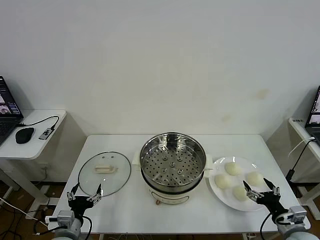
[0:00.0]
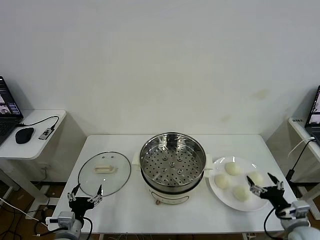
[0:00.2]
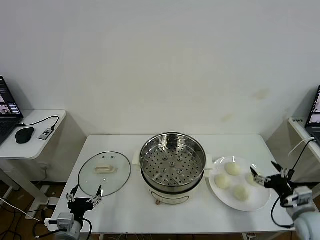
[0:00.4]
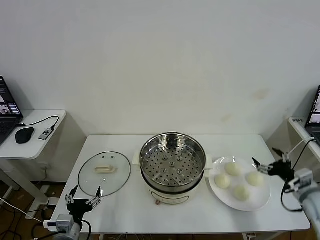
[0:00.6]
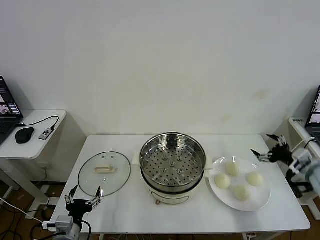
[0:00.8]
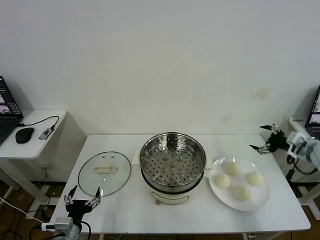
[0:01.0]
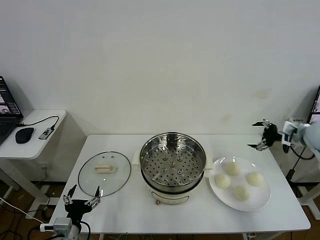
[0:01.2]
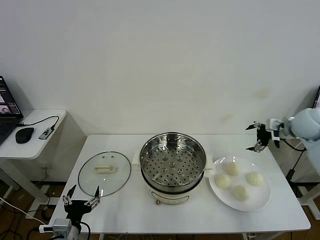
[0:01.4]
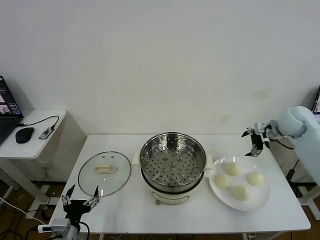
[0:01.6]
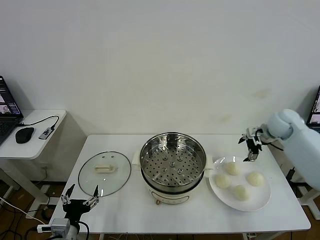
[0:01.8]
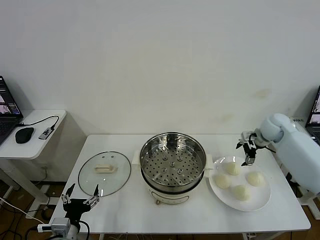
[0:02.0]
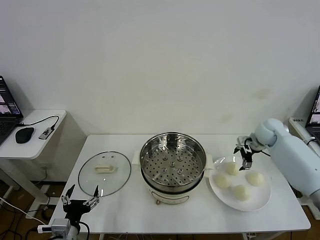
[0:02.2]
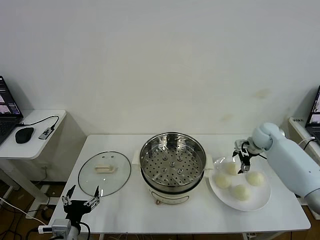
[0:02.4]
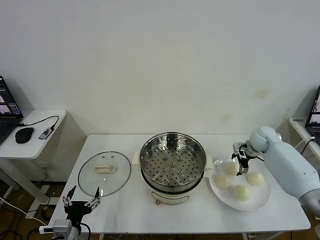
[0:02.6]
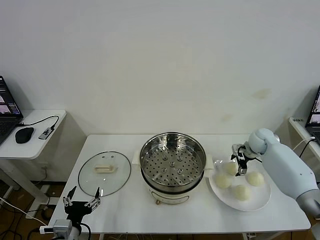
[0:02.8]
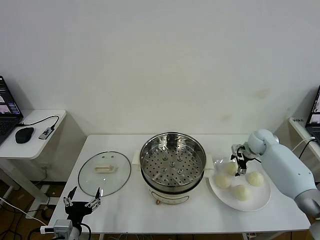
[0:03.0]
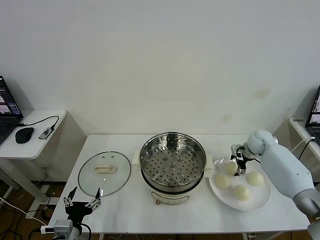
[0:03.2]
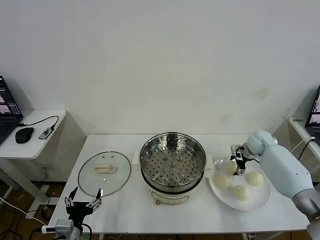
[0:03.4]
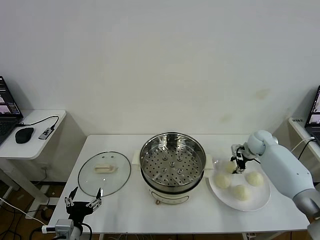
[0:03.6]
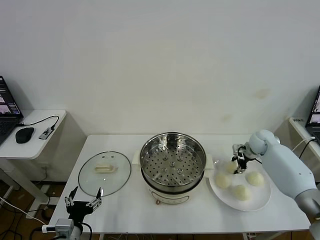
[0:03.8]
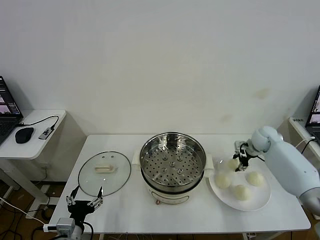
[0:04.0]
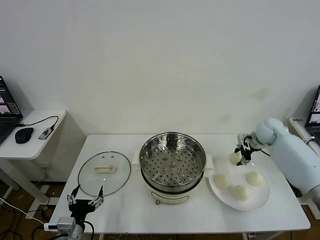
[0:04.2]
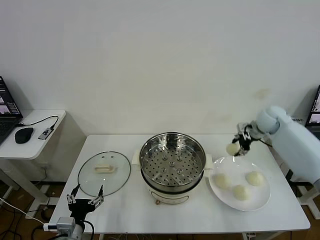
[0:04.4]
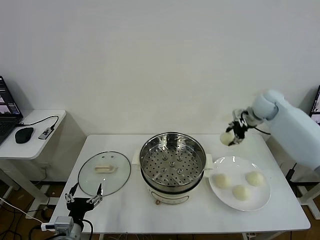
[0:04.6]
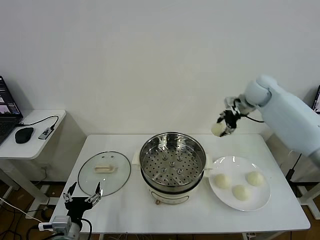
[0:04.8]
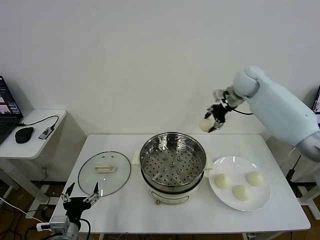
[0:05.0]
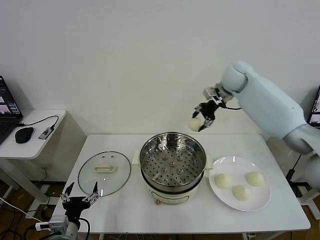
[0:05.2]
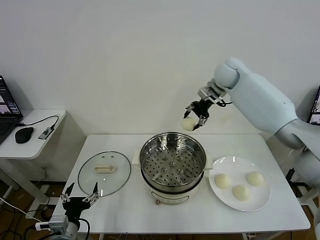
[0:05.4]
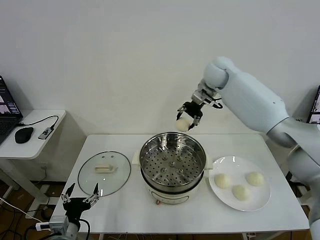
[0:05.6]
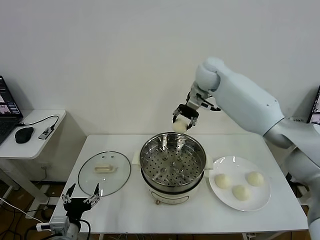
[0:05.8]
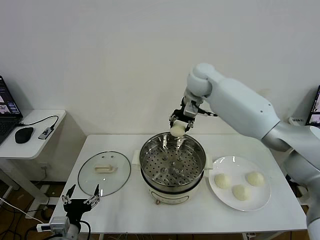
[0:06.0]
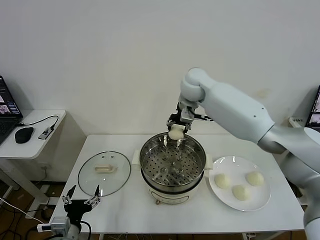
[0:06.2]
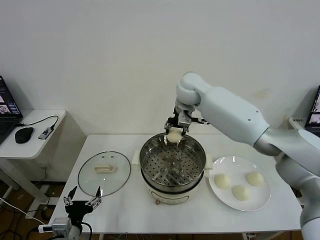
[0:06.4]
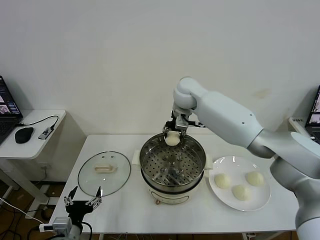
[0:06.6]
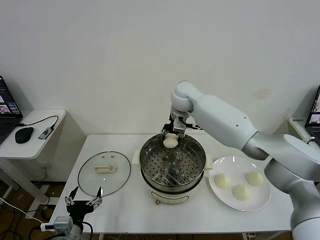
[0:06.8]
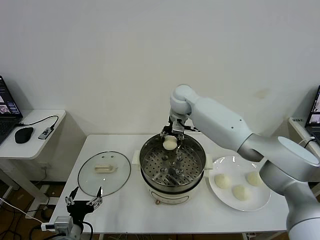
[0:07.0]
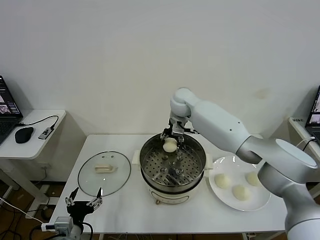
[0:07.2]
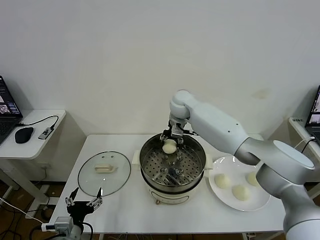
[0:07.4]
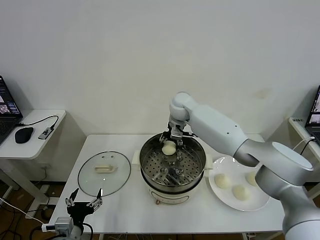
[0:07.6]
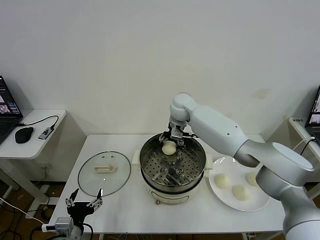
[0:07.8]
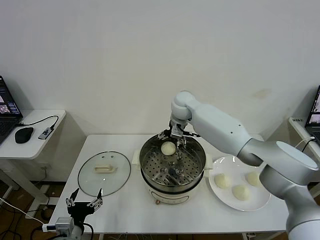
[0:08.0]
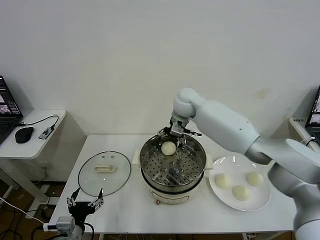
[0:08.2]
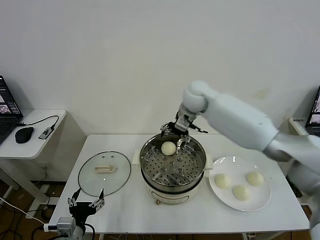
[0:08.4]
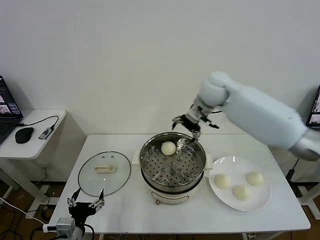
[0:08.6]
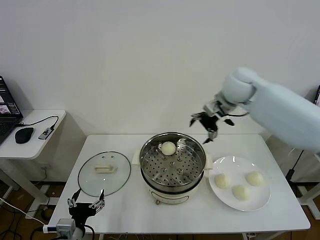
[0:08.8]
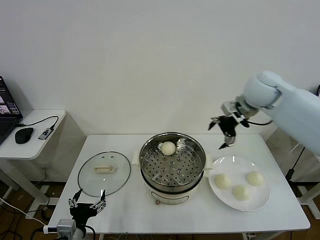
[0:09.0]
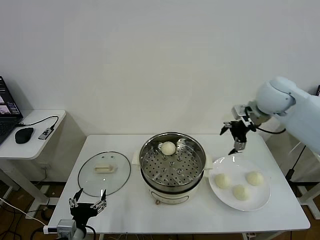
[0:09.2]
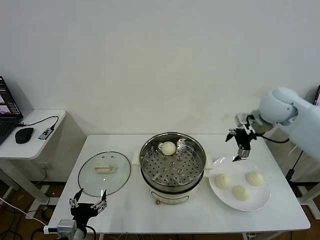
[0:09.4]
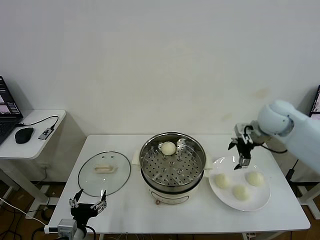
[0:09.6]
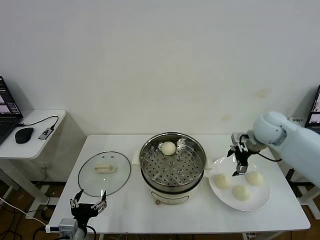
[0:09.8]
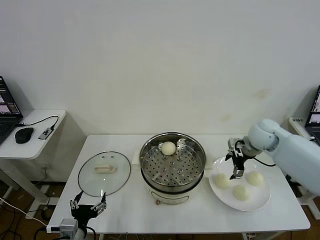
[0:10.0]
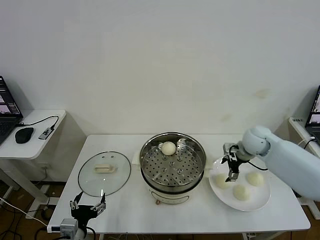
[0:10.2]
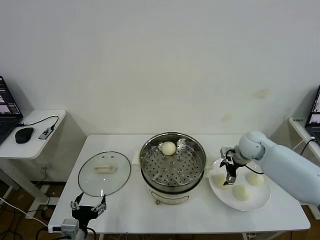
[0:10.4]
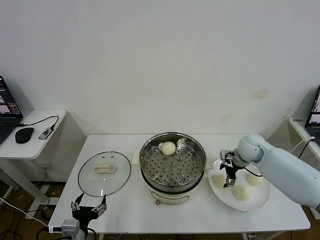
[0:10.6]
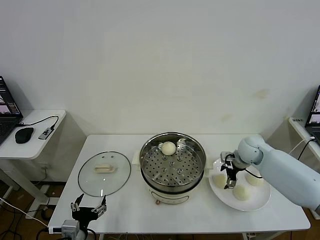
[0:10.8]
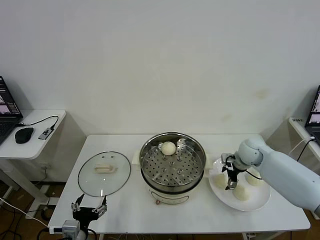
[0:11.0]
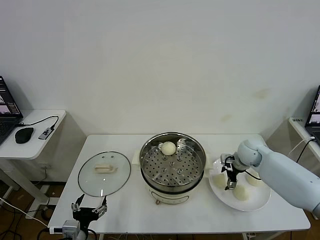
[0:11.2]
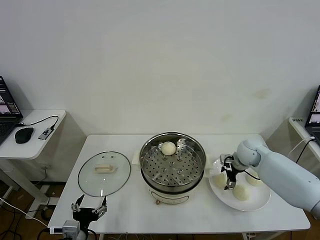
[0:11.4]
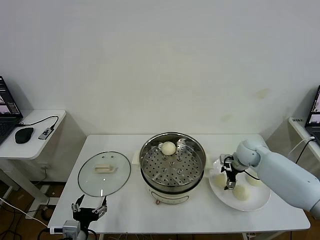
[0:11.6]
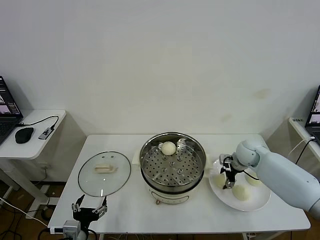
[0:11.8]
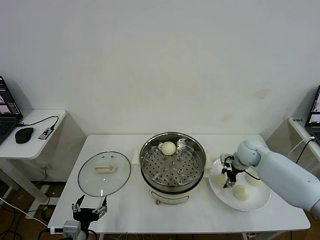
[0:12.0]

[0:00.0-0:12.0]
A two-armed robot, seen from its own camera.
Task of the whole recording: take steamed baozi put them in steamer then cover it.
Step, 0:00.0 to 0:03.6: Grasp the baozi in the plate with right gripper.
Step, 0:04.0 to 0:08.0: Place the baozi on the steamer with right gripper.
0:01.6 to 0:03.0: The right gripper travels downward by some 15 cm.
0:03.0 to 0:04.4: The right gripper travels upward by about 15 cm, and closes up.
0:04.4 to 0:06.0: The right gripper travels to the left by roughly 25 cm.
0:06.0 to 0:07.6: The right gripper shifts some 10 cm downward.
0:07.6 to 0:09.0: The right gripper travels to the right and upward by about 25 cm, and opens up.
0:09.0 to 0:10.4: The right gripper moves downward, approximately 20 cm.
0:10.4 to 0:12.0: The right gripper closes its fingers.

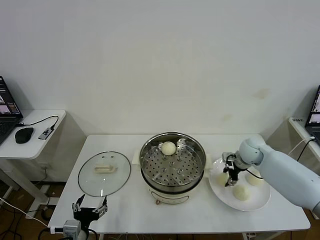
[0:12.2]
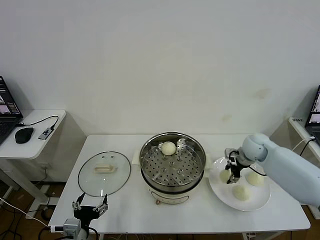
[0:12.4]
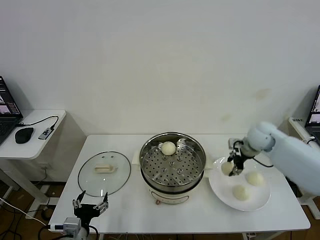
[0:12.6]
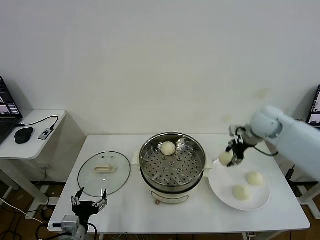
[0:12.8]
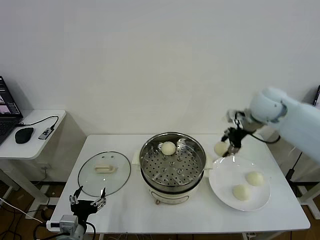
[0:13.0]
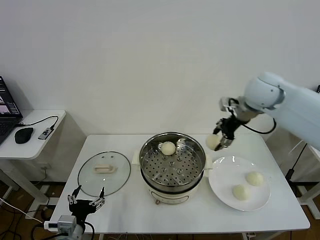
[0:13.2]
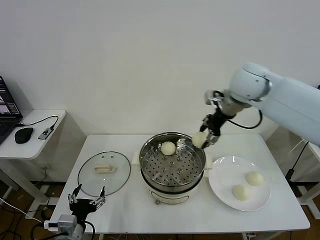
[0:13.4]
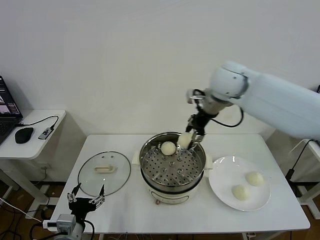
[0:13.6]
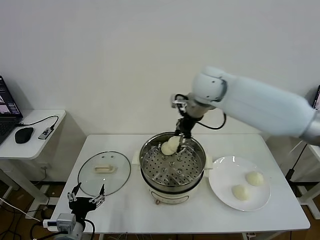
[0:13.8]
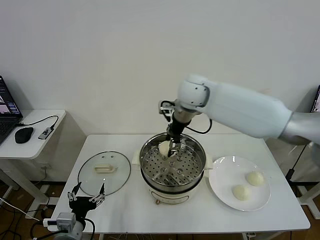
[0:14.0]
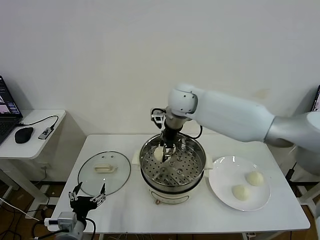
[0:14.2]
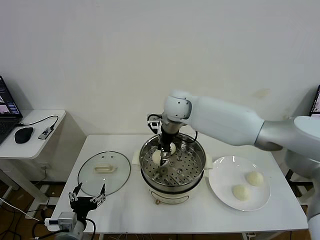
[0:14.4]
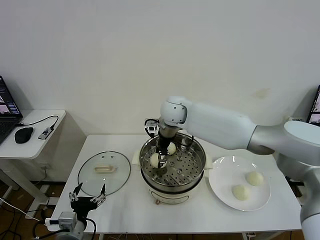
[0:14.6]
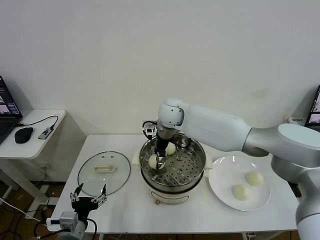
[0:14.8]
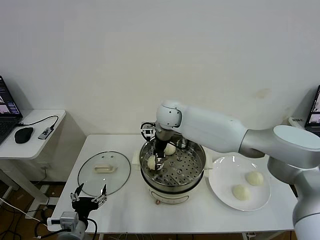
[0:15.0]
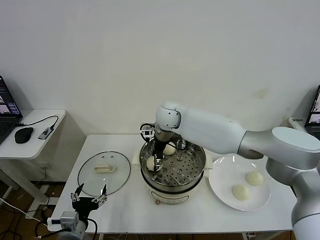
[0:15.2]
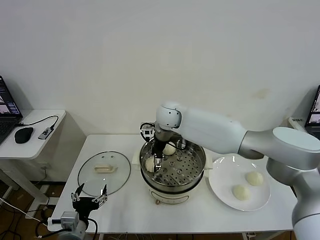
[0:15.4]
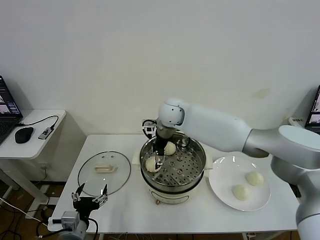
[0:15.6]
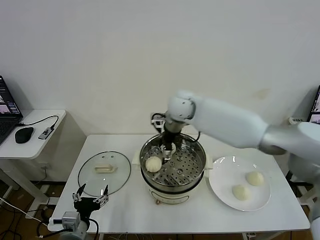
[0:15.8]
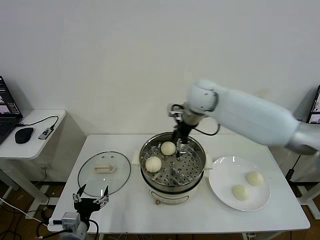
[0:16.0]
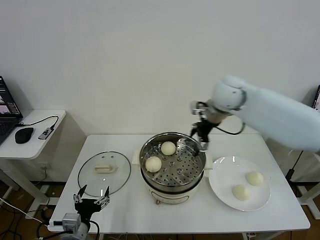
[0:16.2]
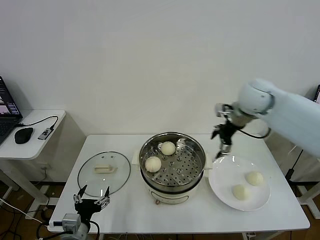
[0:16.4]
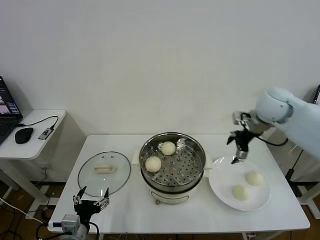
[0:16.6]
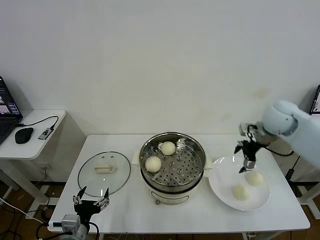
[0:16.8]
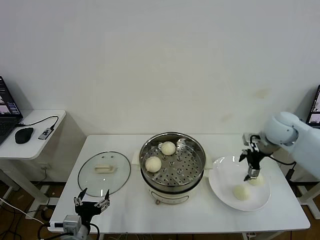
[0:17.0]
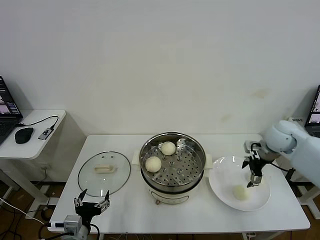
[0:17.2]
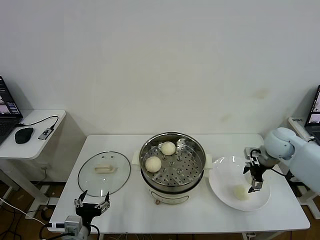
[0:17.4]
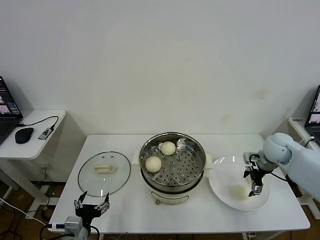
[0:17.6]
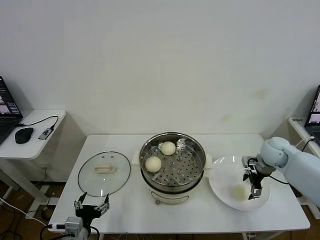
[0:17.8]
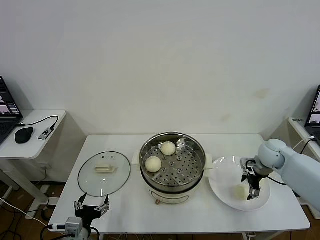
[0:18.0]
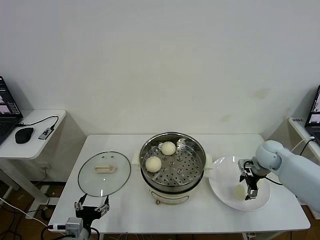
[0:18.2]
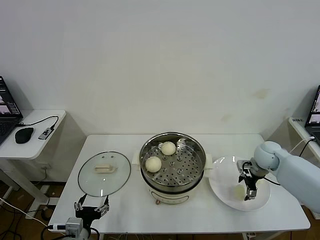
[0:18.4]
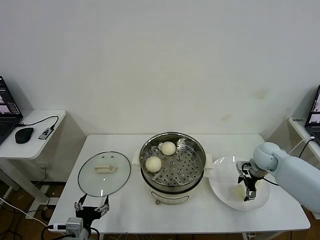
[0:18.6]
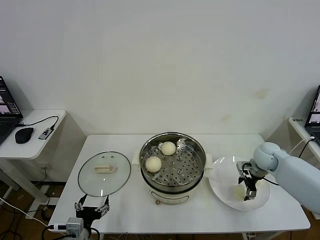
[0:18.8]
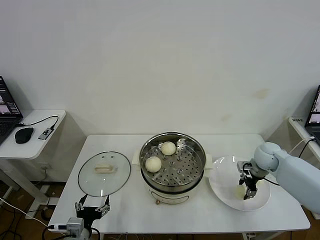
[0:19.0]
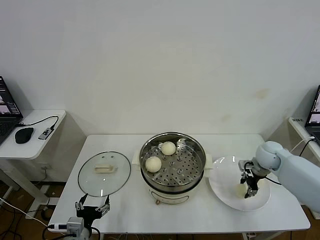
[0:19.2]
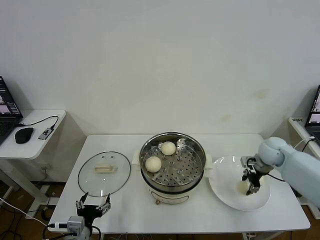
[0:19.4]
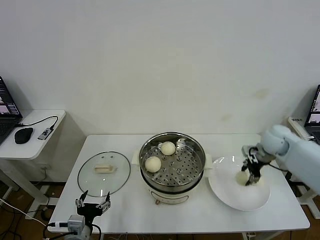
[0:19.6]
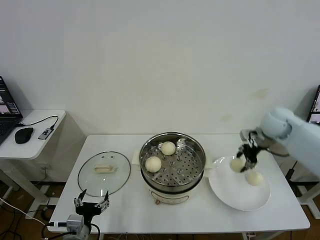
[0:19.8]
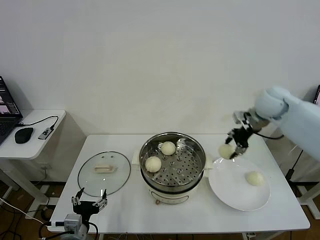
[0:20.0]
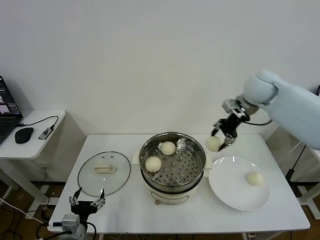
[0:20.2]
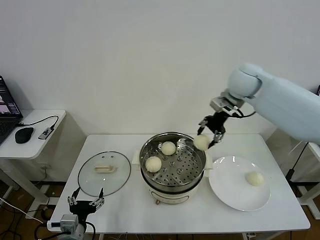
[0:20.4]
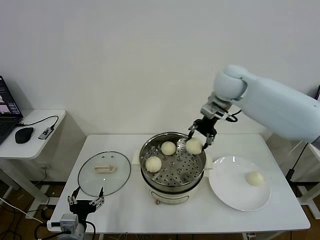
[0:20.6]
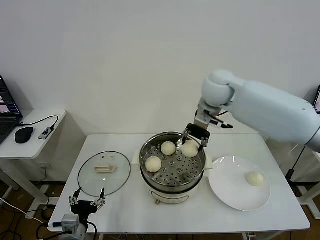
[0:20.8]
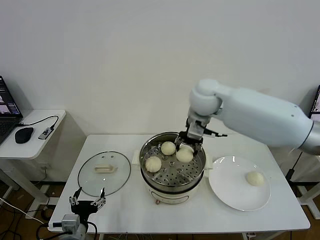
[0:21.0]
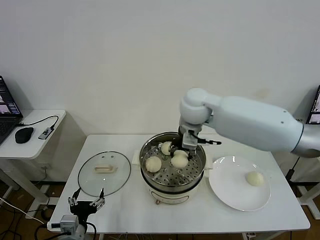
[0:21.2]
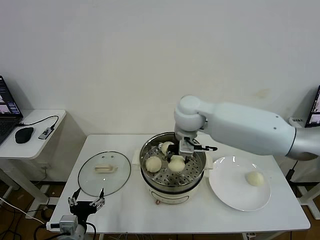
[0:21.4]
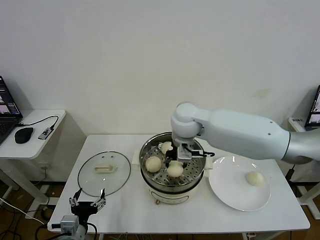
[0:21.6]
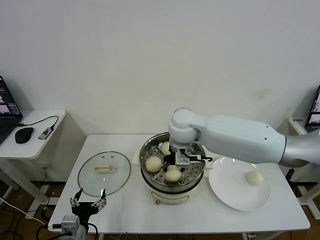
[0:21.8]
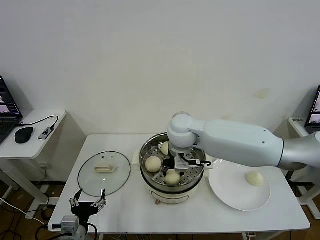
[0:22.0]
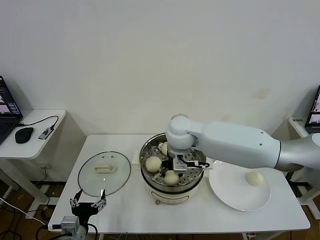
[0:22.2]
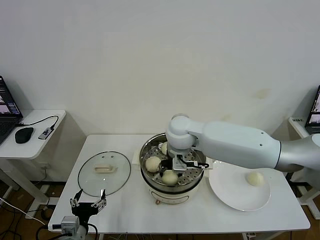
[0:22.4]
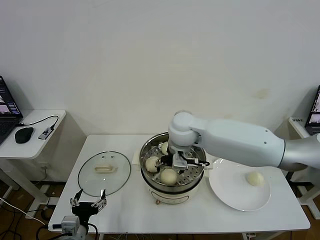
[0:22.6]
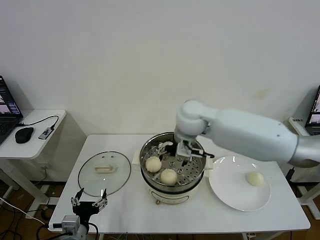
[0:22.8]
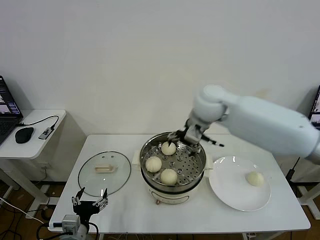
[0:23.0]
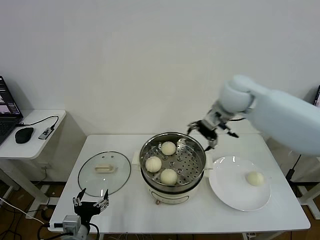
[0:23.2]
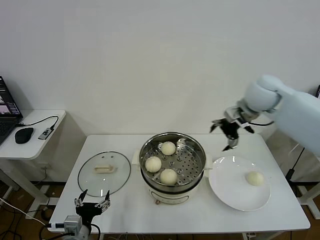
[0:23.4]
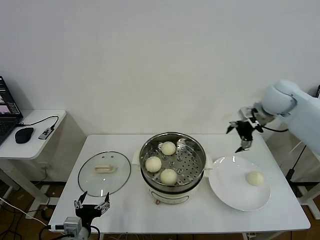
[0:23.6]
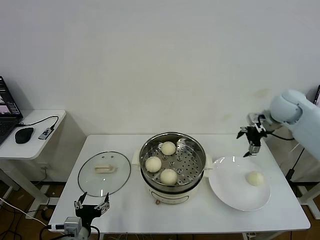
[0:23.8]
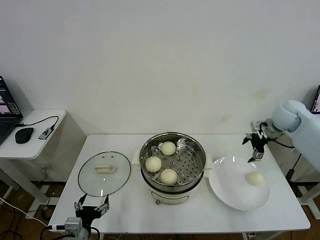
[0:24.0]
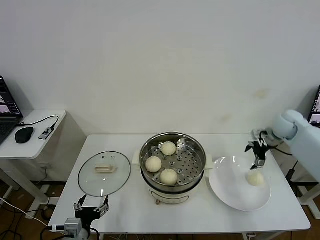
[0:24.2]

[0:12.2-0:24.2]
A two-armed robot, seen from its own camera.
Task of the whole recording: take steamed baozi put them in steamer then cover it.
Step, 0:12.2 to 0:15.6: Place the baozi on the steamer with right gripper.
Step, 0:15.8 to 0:19.2: Grasp the baozi in the plate with right gripper.
Step, 0:19.4 to 0:22.6: Place the baozi on the steamer with right gripper.
0:12.2 to 0:13.8: The right gripper moves upward and to the left, roughly 35 cm.
0:13.8 to 0:15.2: The right gripper shifts roughly 15 cm downward and to the left.
0:15.2 to 0:16.6: The right gripper shifts about 30 cm to the right, and opens.
0:16.6 to 0:18.2: The right gripper goes about 20 cm downward.
0:18.2 to 0:19.8: The right gripper is displaced upward by some 15 cm, and closes.
0:19.8 to 0:21.2: The right gripper is displaced to the left by approximately 25 cm.
0:21.2 to 0:22.6: The right gripper moves about 5 cm, and opens up.
0:22.6 to 0:24.2: The right gripper goes approximately 35 cm to the right.
